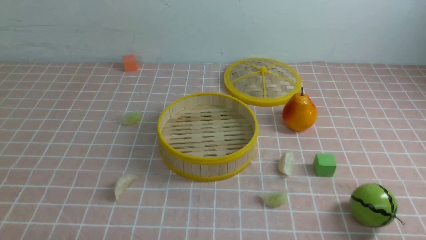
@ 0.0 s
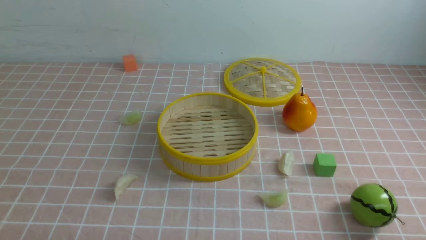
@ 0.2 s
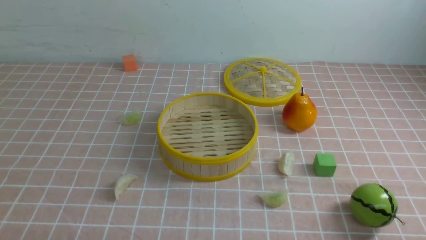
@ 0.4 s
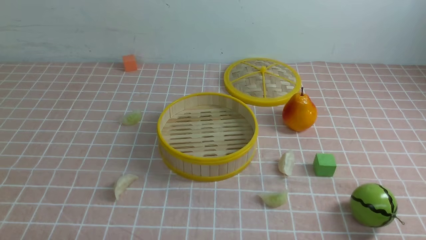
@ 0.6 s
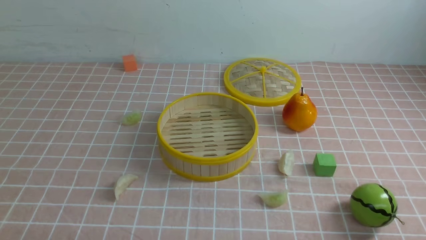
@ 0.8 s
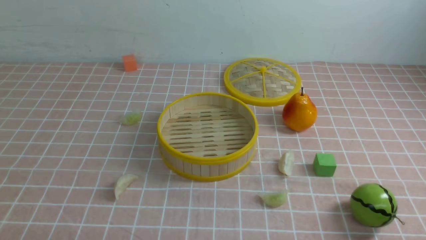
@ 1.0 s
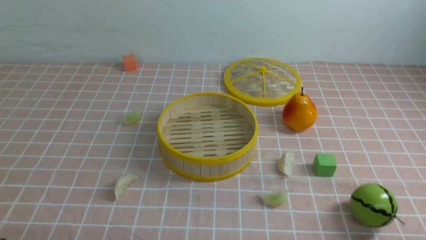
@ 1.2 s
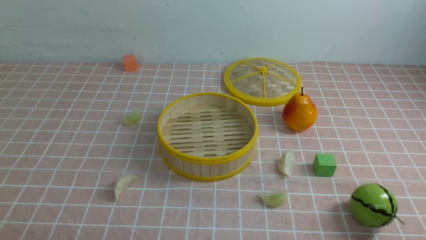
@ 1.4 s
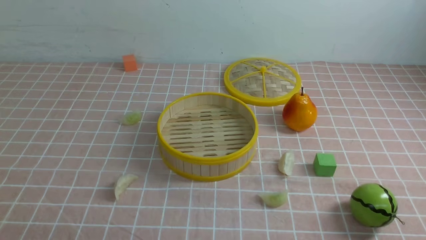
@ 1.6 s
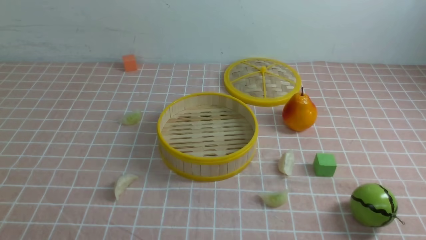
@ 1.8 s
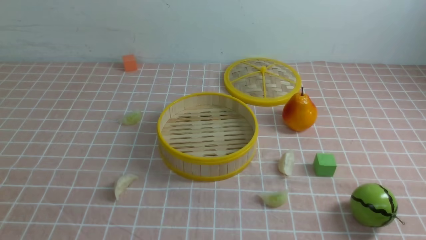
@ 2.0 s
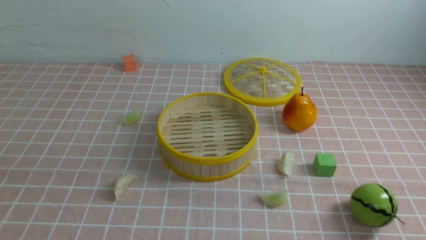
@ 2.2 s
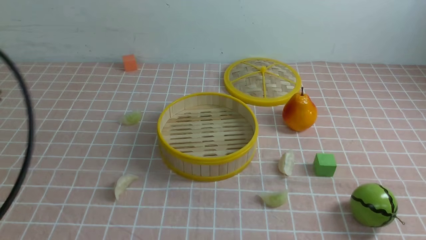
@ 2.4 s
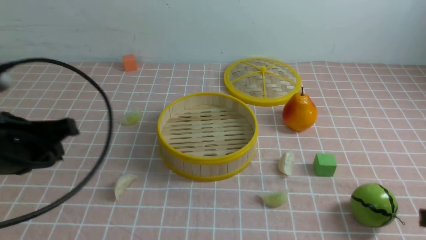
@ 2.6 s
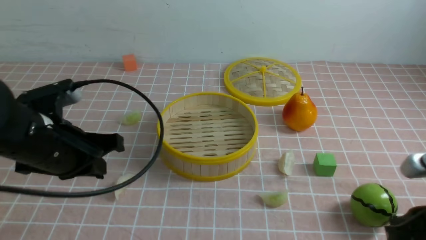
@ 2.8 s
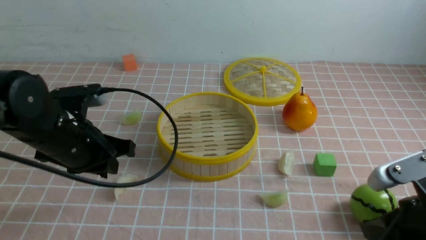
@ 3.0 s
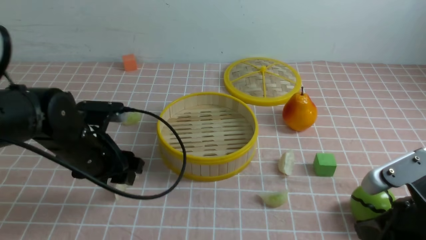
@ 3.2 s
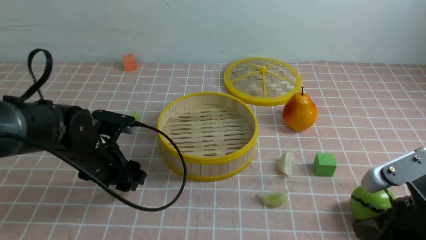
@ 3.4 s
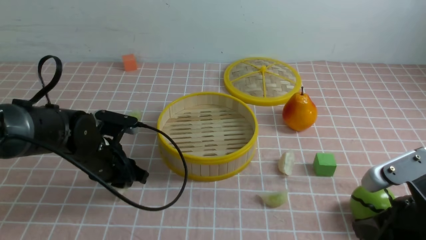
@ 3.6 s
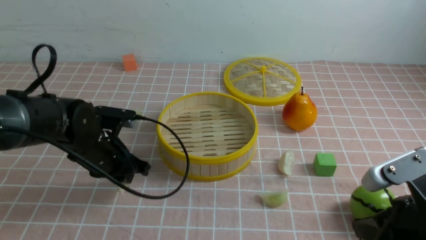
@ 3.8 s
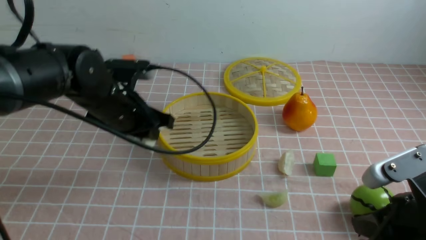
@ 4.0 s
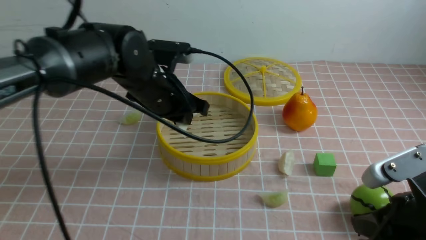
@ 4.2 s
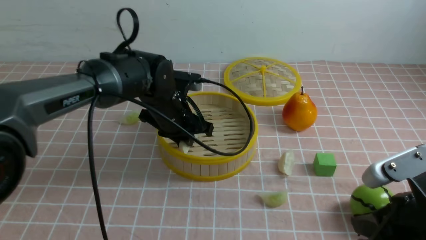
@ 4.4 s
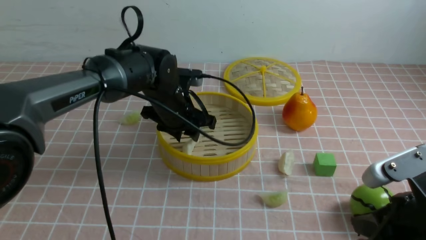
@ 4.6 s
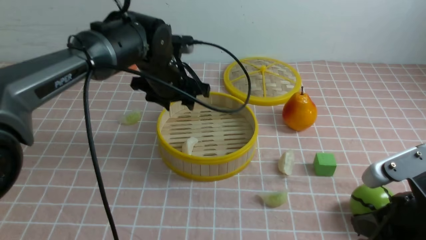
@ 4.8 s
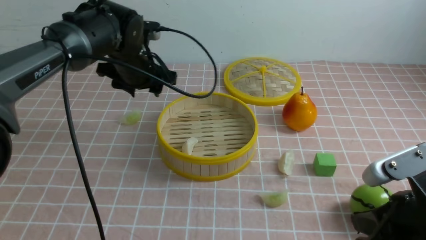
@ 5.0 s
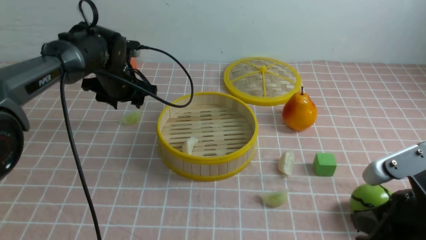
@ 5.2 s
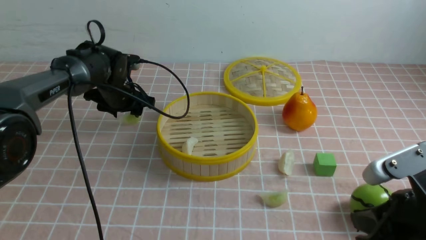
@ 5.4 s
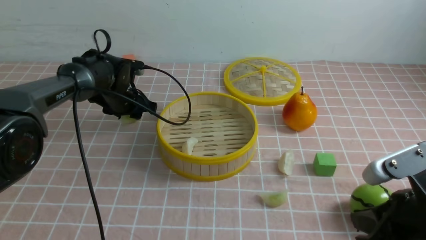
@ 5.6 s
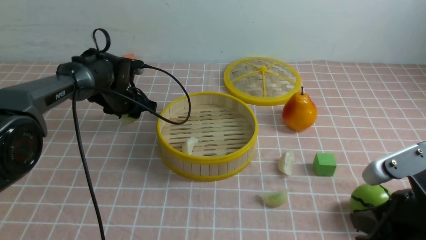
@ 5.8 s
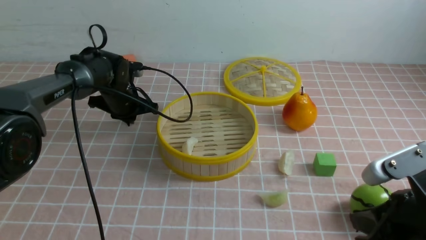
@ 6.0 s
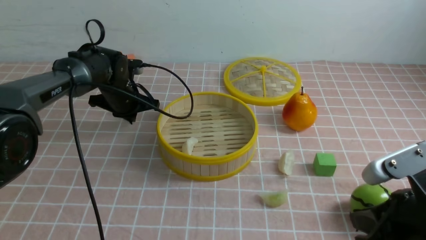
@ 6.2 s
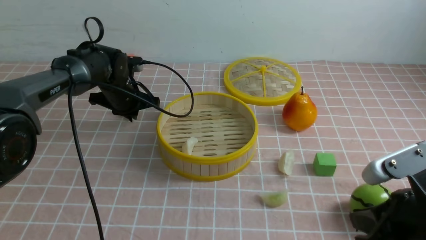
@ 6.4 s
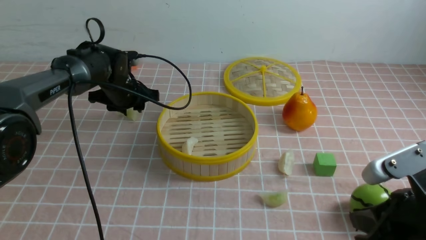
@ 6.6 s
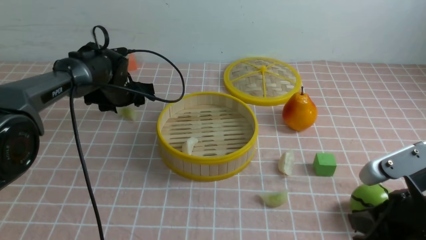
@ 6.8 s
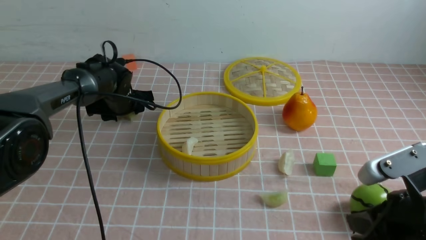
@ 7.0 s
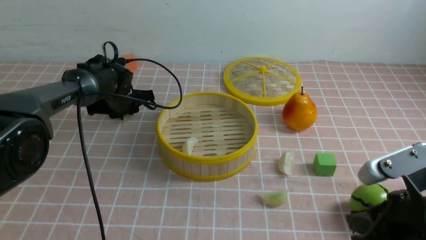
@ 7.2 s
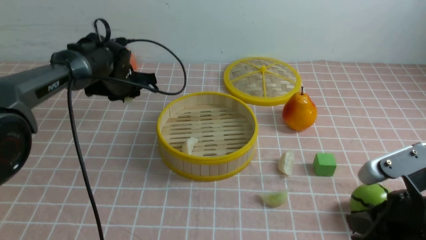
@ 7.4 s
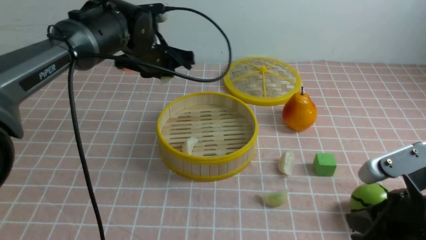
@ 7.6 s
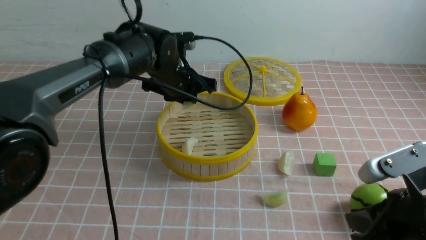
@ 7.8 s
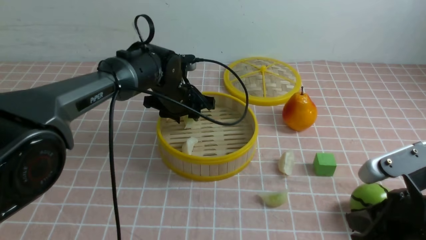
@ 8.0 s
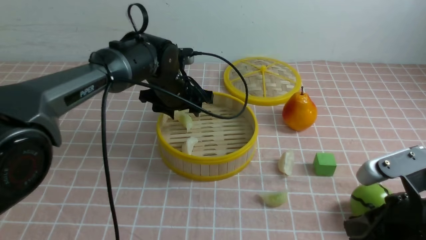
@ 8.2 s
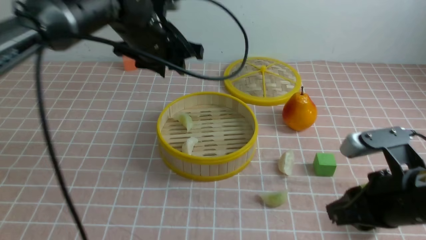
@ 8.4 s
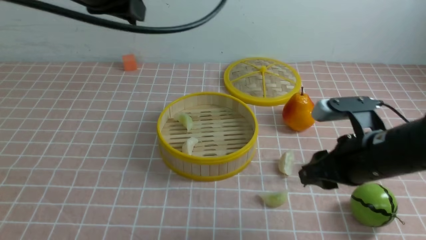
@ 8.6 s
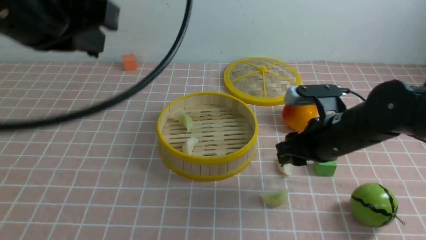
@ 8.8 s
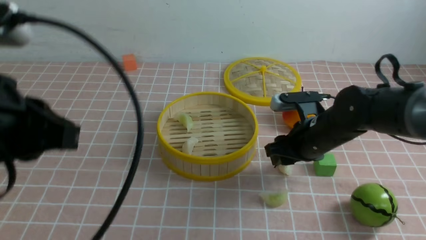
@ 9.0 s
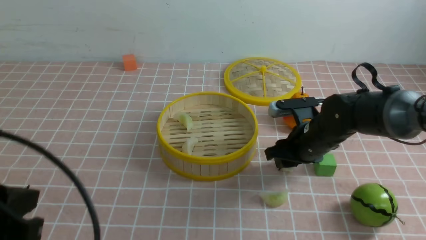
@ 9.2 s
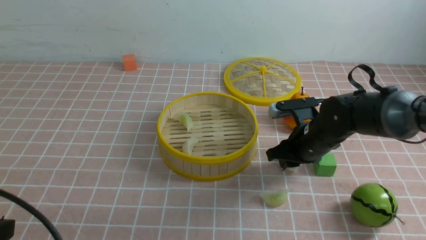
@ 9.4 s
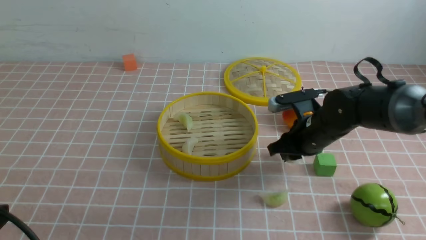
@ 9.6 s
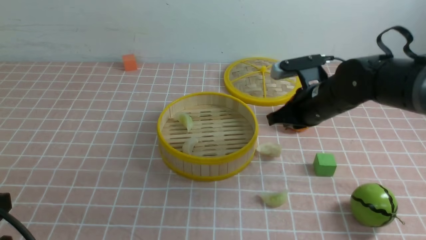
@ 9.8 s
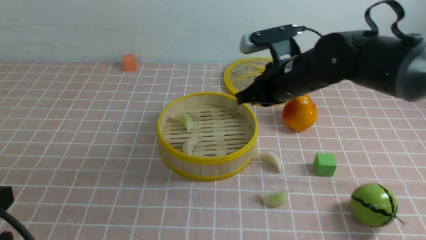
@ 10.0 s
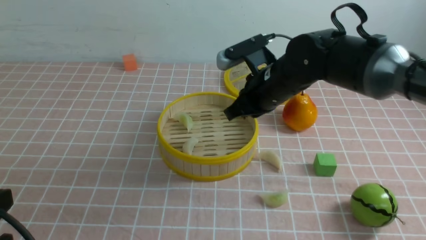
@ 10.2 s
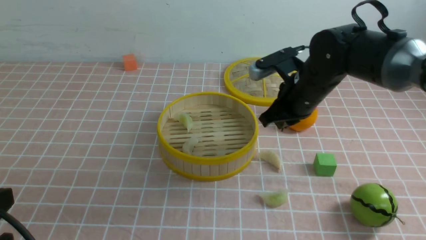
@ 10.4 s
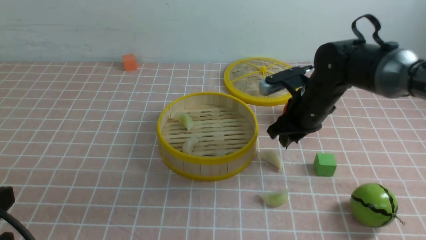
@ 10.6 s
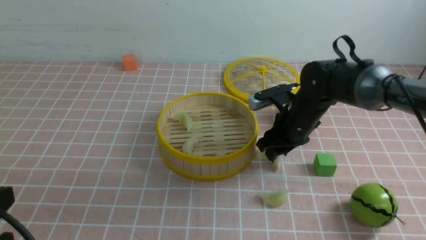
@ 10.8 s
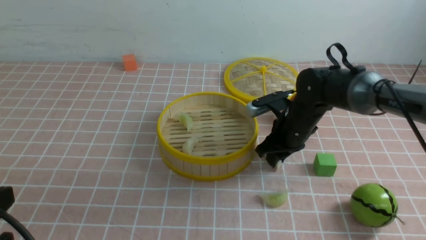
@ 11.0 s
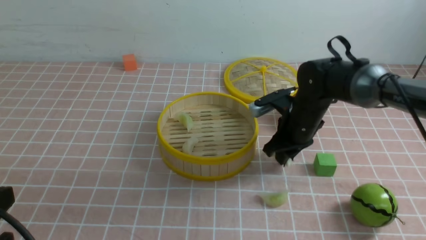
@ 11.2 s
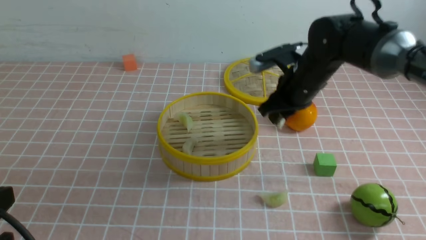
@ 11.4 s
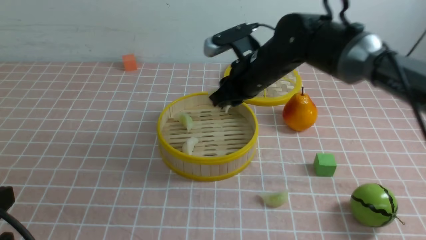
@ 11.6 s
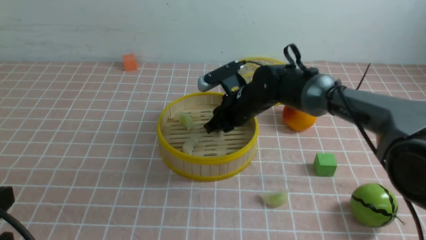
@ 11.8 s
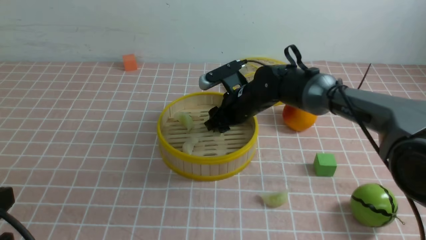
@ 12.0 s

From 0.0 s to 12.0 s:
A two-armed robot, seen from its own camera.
Task of the whole recording: put the dumplings into the steamer on the table with the pink tablecloth.
Step, from 0.0 s to 3.6 s: use the left arm to grab a dumpling.
Step, from 4.0 s to 4.6 s: use the left arm to put the dumpling into the steamer.
Step, from 5.0 s to 7.2 s: use the left arm to grab a dumpling.
Step, from 7.4 s to 8.2 s: use the left arm to put the dumpling into the steamer.
Step, from 8.4 s to 11.0 s: use the right arm to grab a dumpling.
From 1.6 s to 3.0 s: The left gripper shifts some 25 cm forward, and closes, then opens again, while the right gripper shifts roughly 15 cm forward and to the left, and closes up.
From 3.0 s to 4.4 s: The left gripper shifts about 15 cm forward and to the right, and opens, then closes again.
From 4.4 s to 6.0 s: The left gripper heads to the left, forward and downward, covering approximately 15 cm, and opens, then closes again.
From 6.0 s to 7.6 s: The left gripper heads upward and to the right, covering approximately 10 cm, and opens and closes again.
From 7.6 s to 9.0 s: The left gripper shifts approximately 30 cm backward, and closes. Meanwhile the right gripper heads forward, covering some 20 cm, and opens.
From 9.0 s to 10.4 s: The right gripper heads upward, covering approximately 5 cm, and closes up, while the left gripper moves downward and backward, about 10 cm.
From 10.4 s to 12.0 s: The right gripper shifts about 5 cm to the left, and opens its fingers.

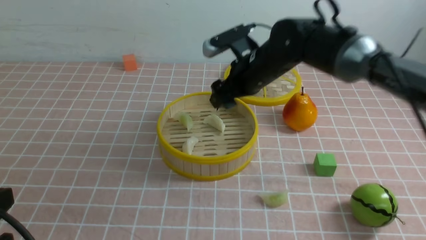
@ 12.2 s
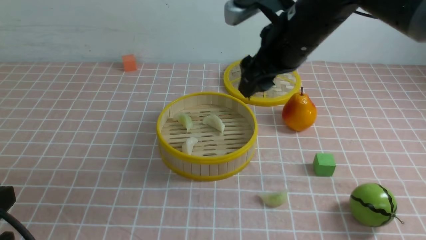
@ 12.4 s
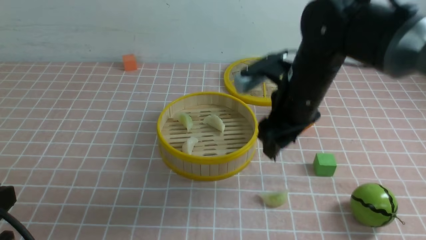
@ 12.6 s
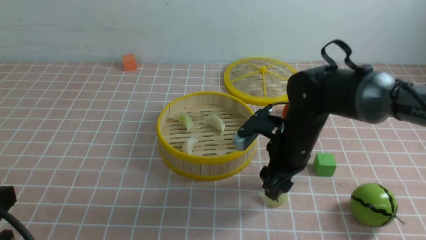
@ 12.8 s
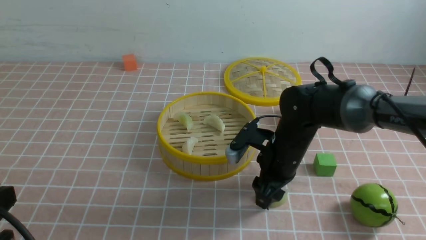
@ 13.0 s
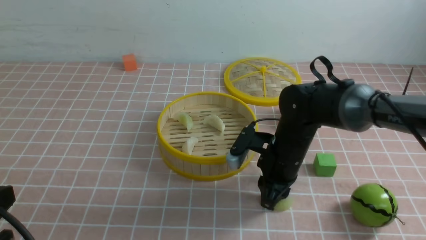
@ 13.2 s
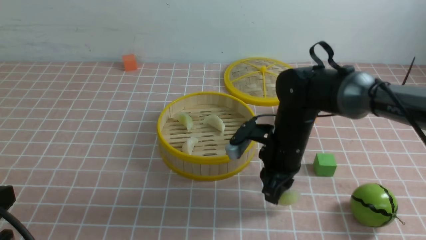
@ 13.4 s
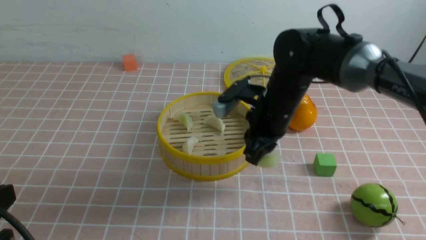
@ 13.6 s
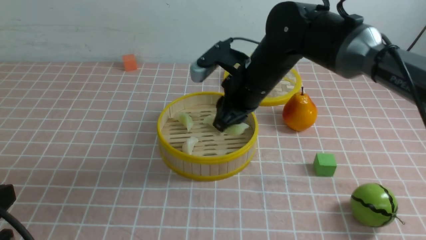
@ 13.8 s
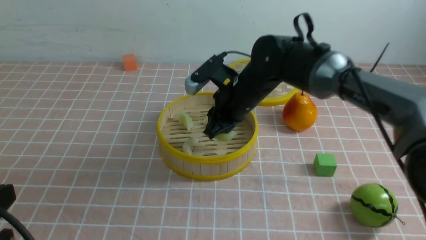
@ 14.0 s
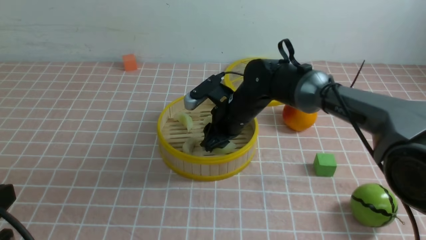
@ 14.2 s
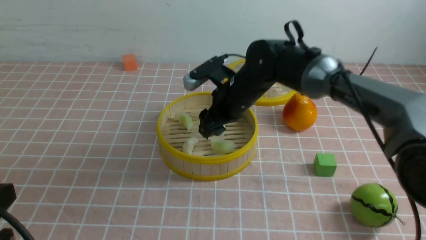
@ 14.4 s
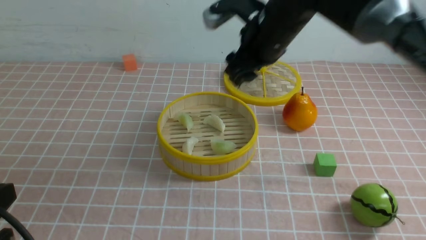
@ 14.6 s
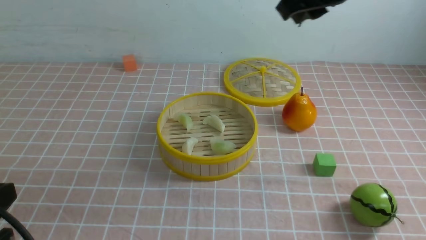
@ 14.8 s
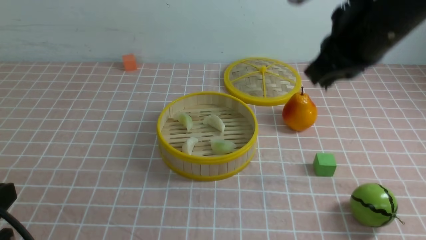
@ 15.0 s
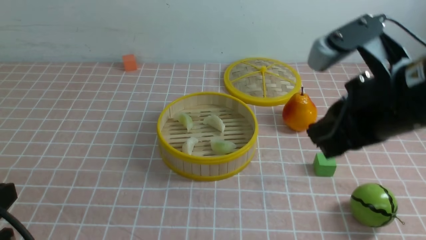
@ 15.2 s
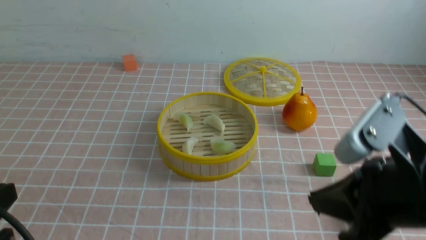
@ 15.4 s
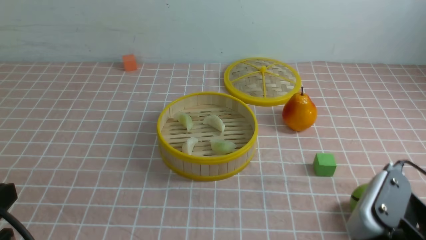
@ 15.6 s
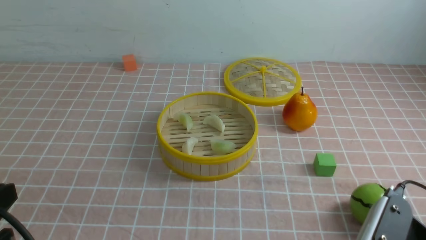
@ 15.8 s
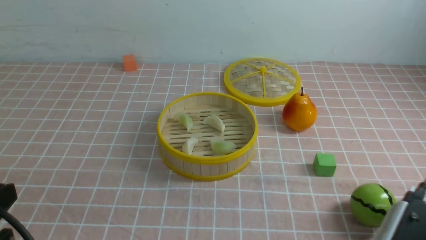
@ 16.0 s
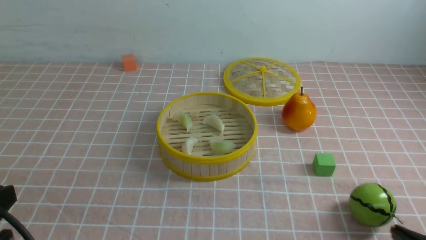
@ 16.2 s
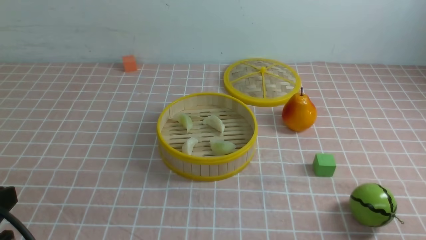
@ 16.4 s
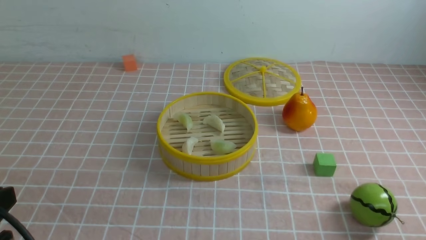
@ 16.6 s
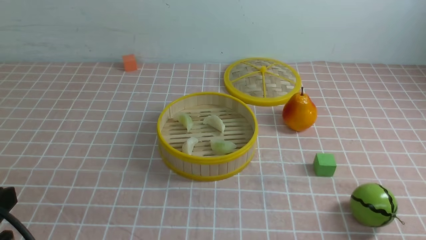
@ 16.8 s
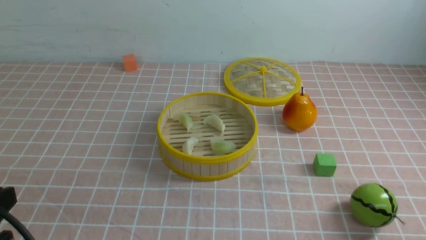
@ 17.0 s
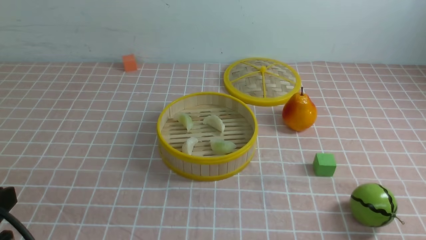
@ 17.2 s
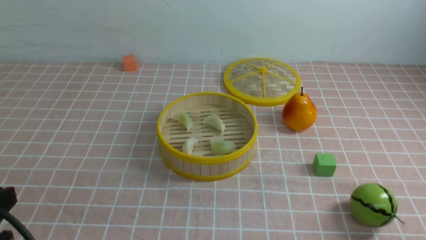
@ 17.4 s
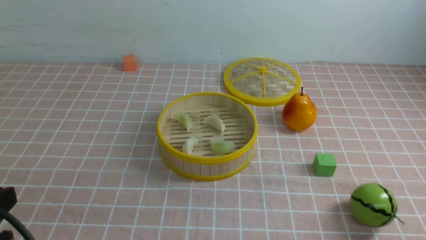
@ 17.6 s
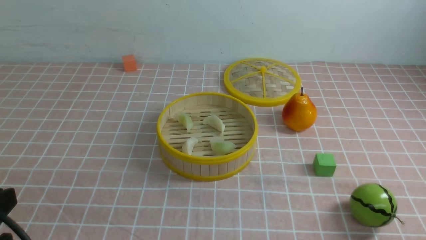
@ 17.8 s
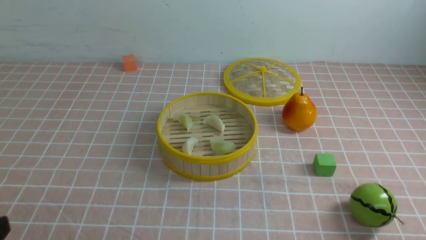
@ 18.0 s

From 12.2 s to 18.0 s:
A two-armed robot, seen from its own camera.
Task of the whole recording: put the dumplings into the steamer on the table with the pink tablecloth.
Step, from 12.4 s to 13.2 s: use the right arm to grab a dumpling.
Step, from 13.4 s to 14.4 s: use the right arm to put the dumpling into the steamer.
From 12.2 s to 13.6 s: The right gripper travels downward and back again, some 10 cm each way, and closes.
From 13.6 s to 15.0 s: The right gripper heads upward, backward and to the right, covering some 20 cm, and opens and closes again.
From 15.0 s to 16.6 s: The right gripper travels downward, backward and to the right by roughly 35 cm.
